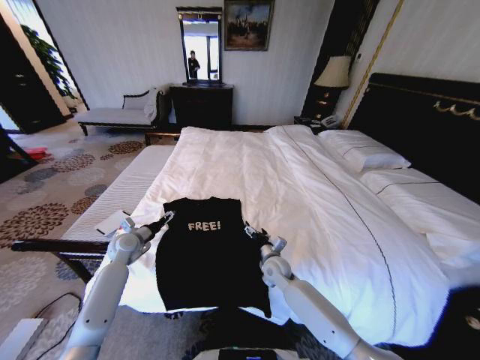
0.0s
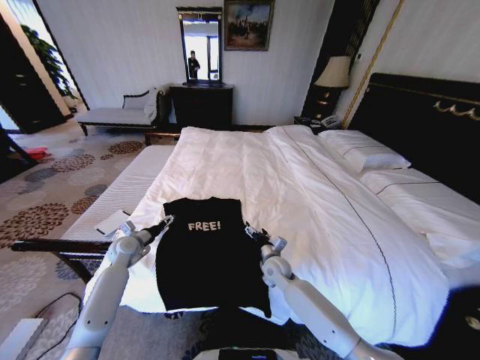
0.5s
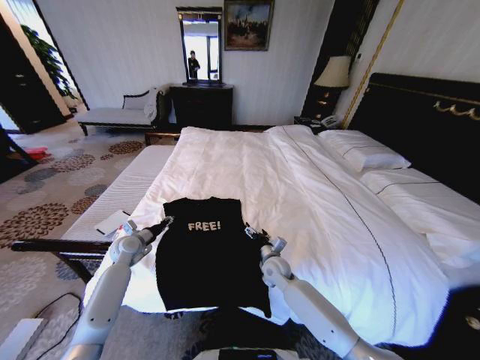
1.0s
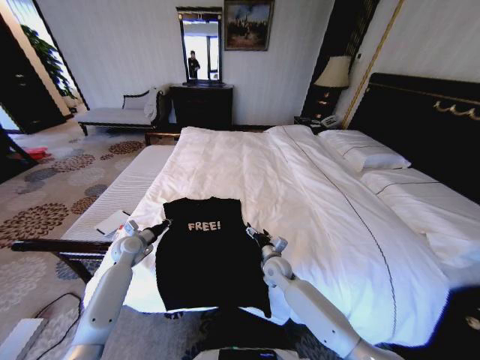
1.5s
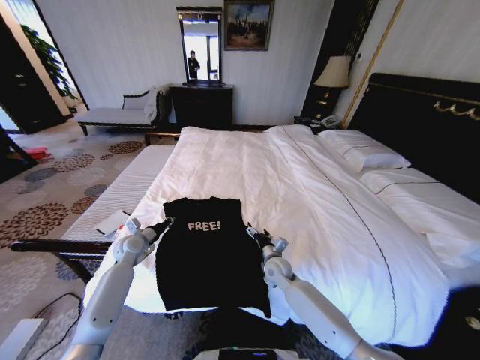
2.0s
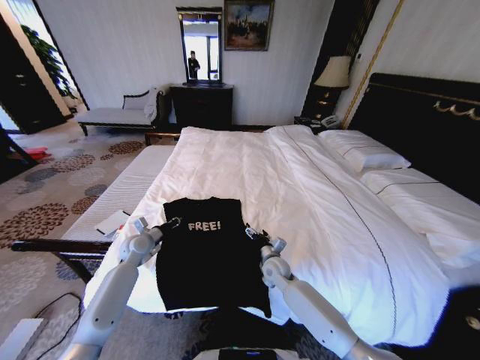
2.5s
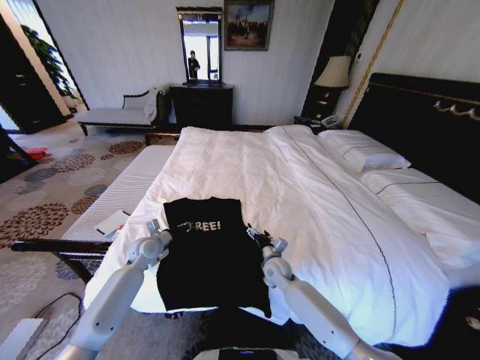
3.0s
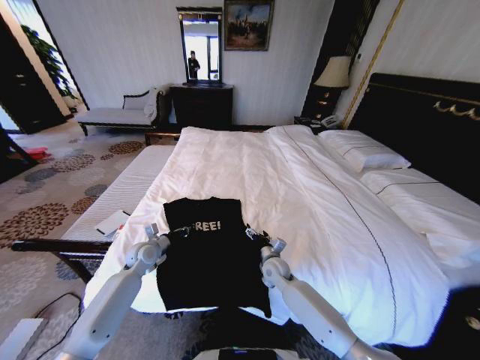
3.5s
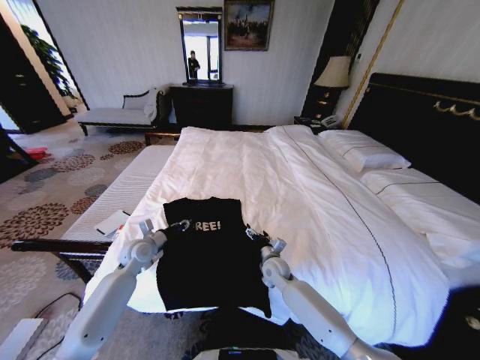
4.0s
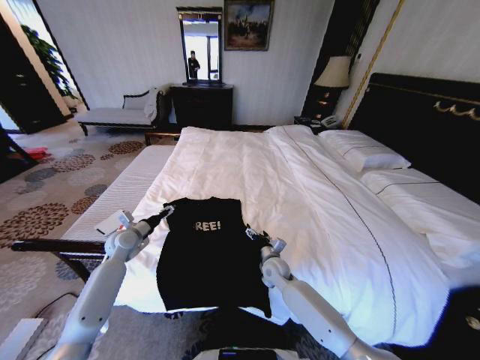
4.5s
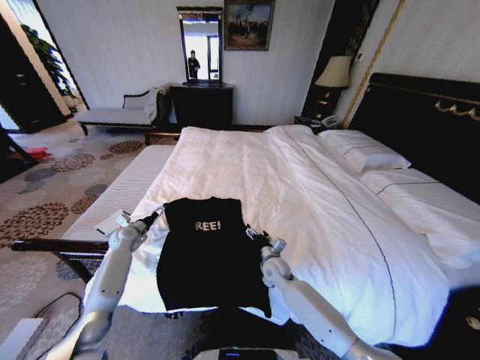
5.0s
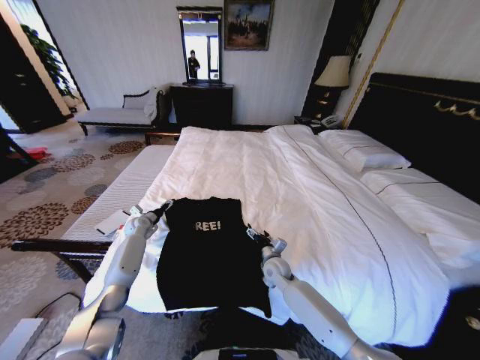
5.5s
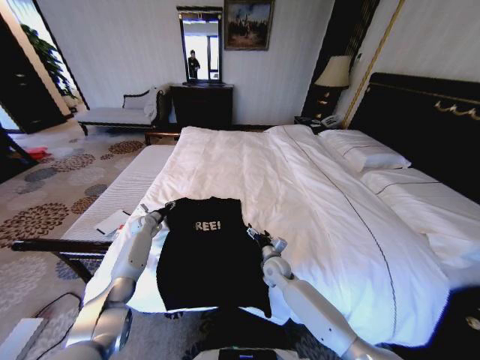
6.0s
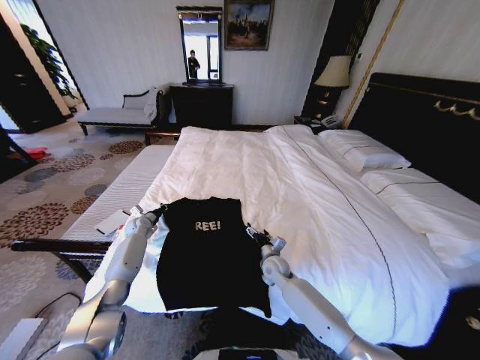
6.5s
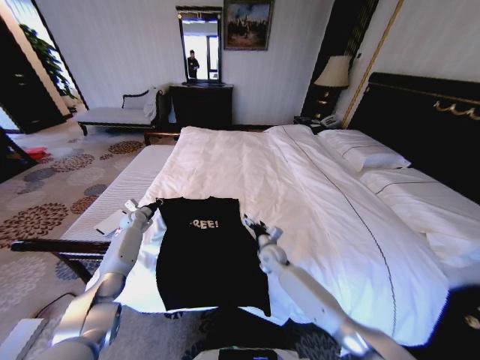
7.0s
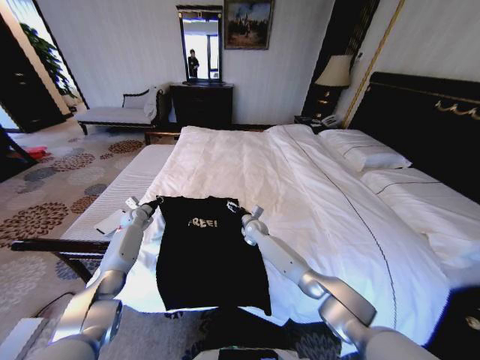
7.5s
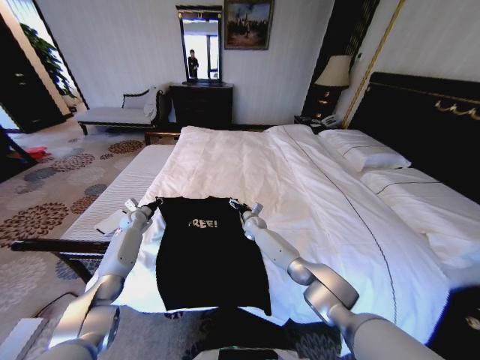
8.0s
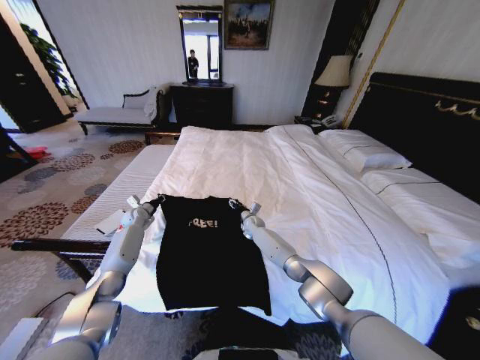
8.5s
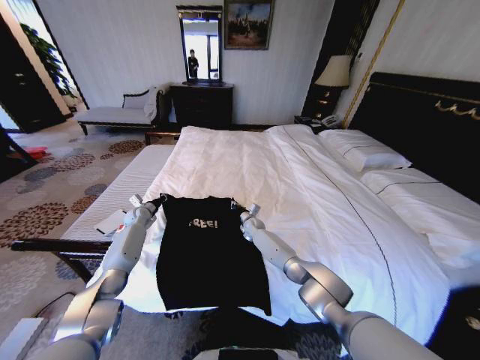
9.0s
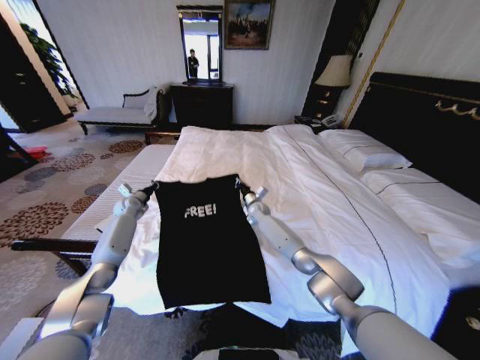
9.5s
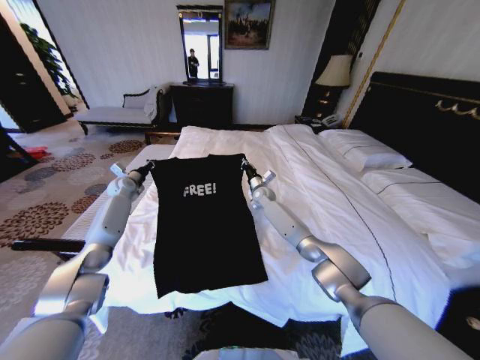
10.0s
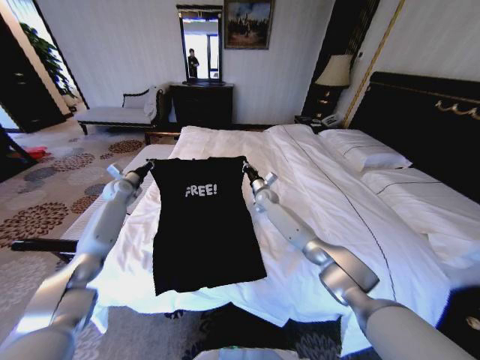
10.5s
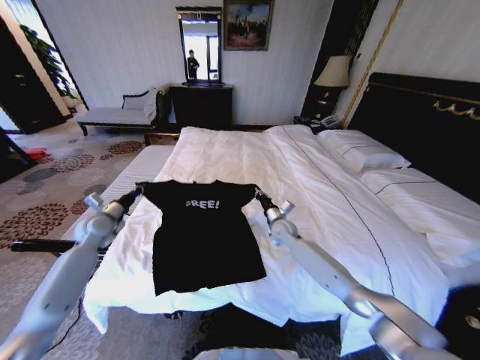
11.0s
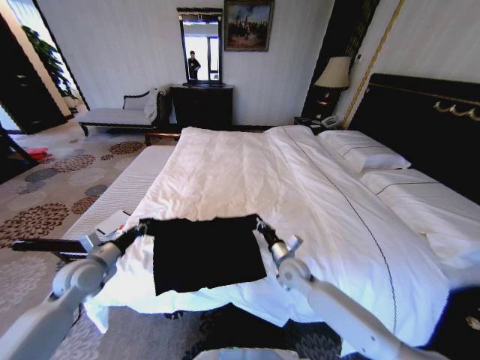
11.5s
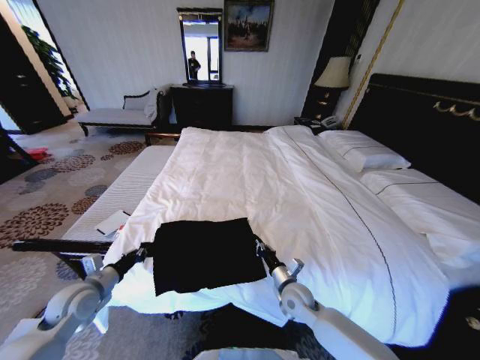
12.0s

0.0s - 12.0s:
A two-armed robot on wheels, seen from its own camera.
Task of the whole recording: Fold the clothes on the bed.
0.0s - 2.0s: The left gripper closes up.
2.0s - 4.0s: The left gripper ends up approximately 5 cm from where it was.
4.0s - 6.0s: The left gripper travels forward, downward and to the left by approximately 20 cm, and opens, then closes again.
6.0s - 8.0s: The right gripper heads forward, covering approximately 20 cm, while the left gripper closes its fingers.
8.0s - 10.0s: The two grippers go some 15 cm upward and forward. The right gripper closes.
10.0s - 12.0s: The grippers both shift backward by roughly 35 cm.

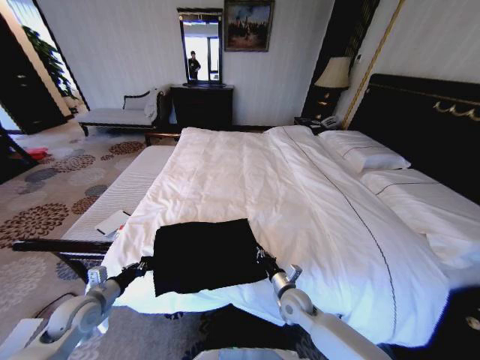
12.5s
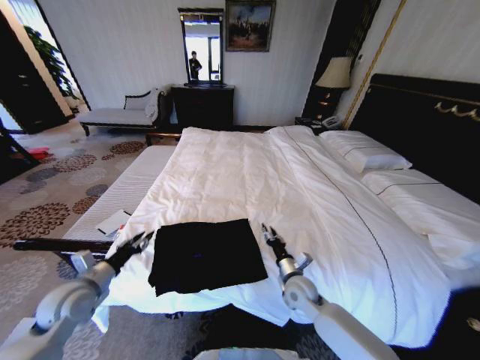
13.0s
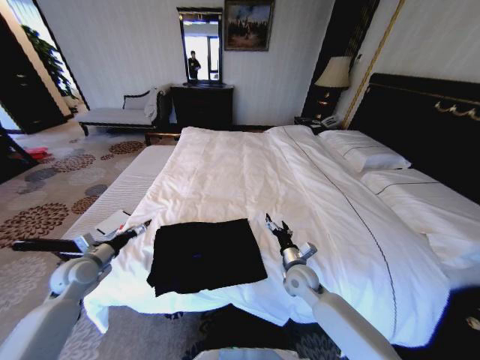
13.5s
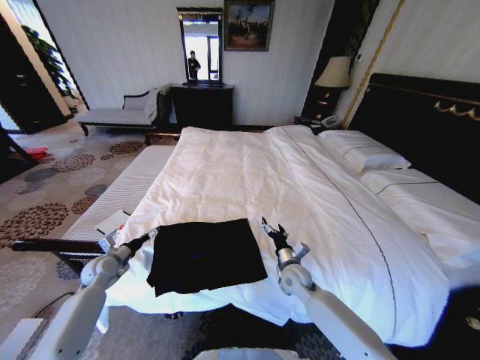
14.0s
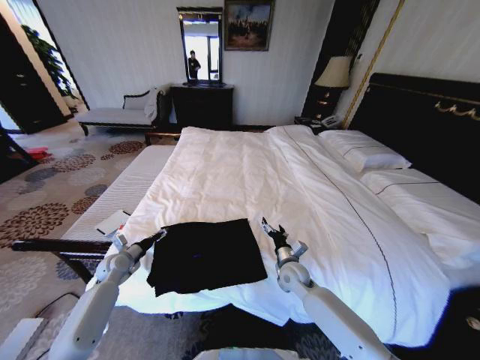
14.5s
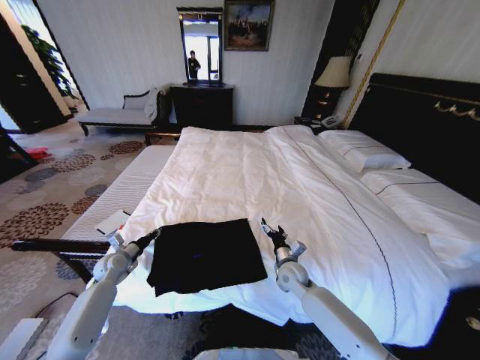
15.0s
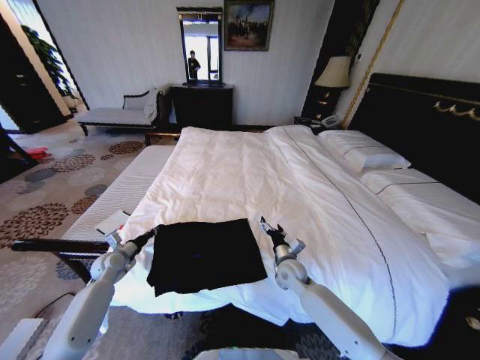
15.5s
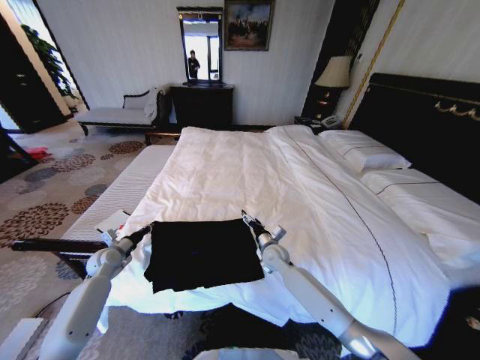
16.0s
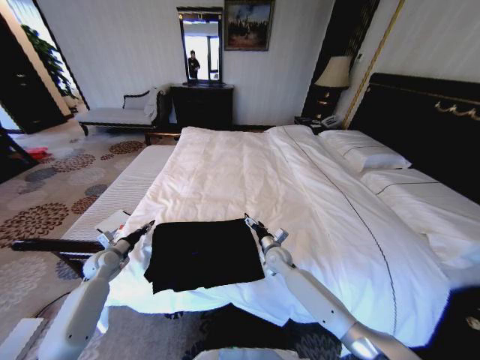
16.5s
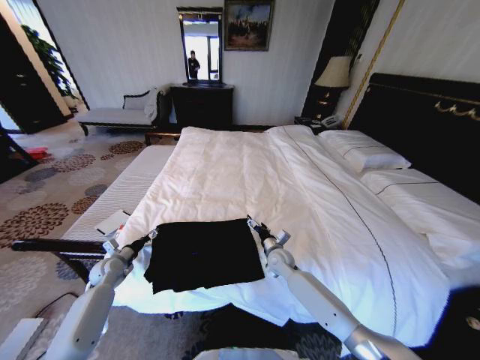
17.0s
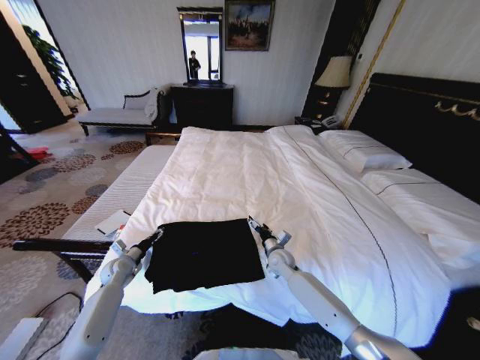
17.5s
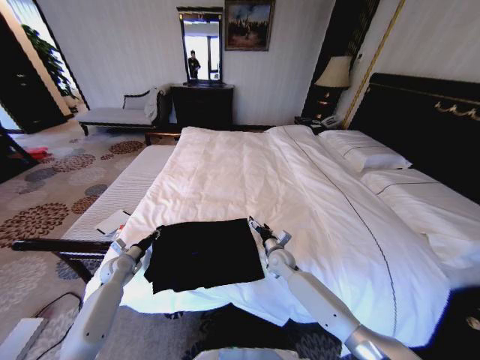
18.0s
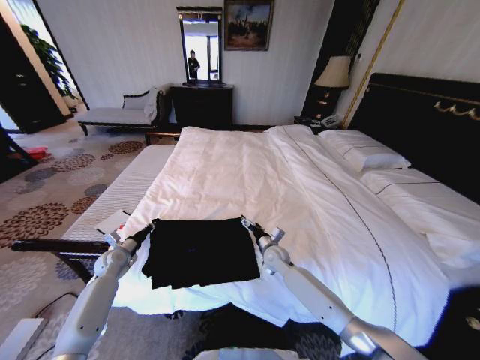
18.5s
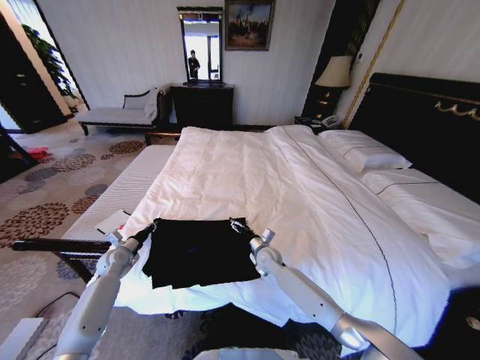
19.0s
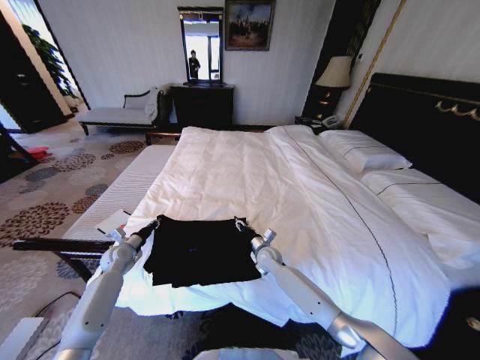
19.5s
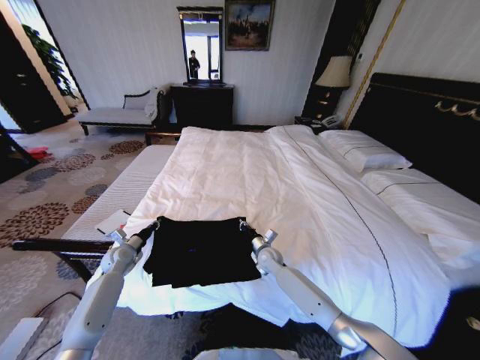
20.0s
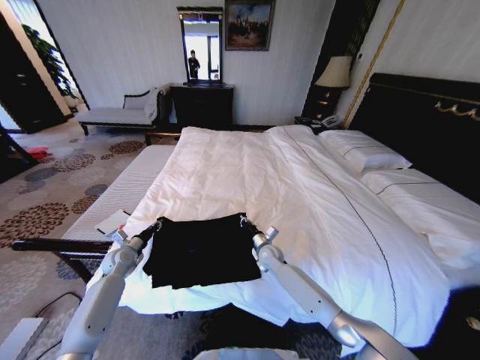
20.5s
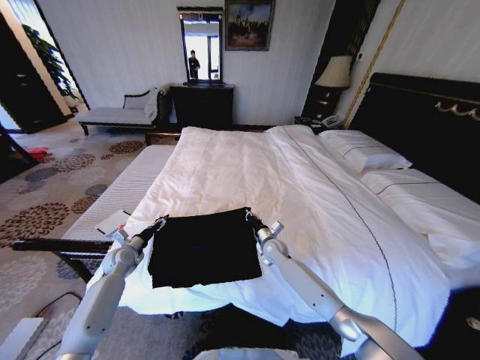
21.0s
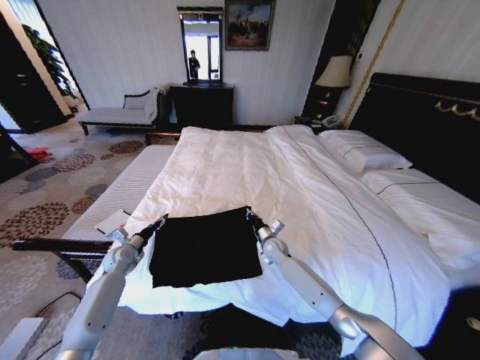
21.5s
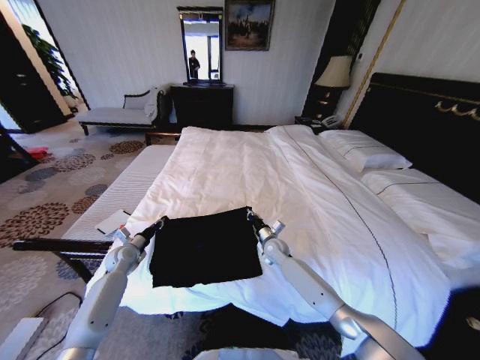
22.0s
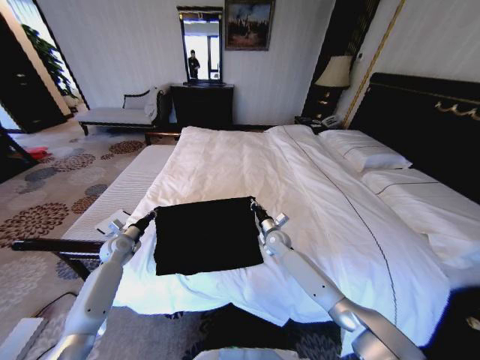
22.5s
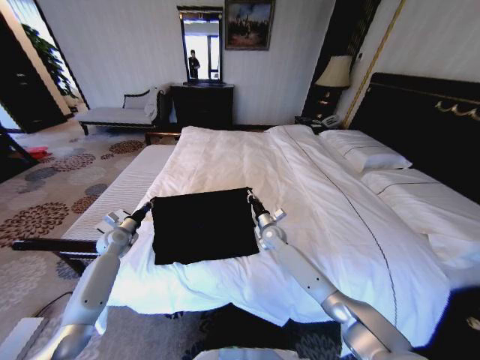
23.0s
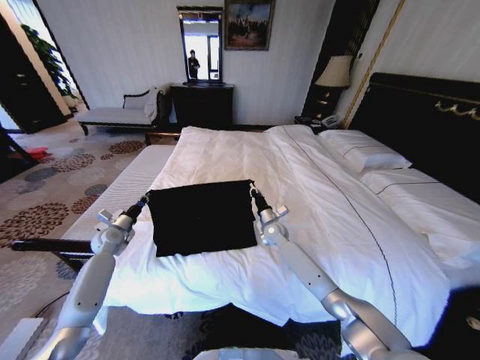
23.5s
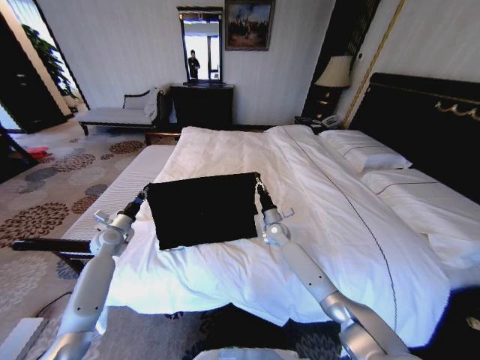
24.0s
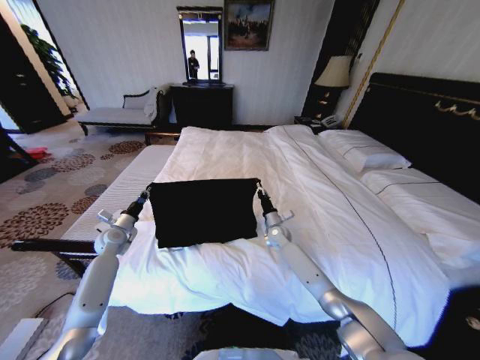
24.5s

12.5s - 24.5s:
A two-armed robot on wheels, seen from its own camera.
Task of the whole recording: Fold the clothes on the bed.
12.5s - 14.5s: The left gripper shifts roughly 15 cm forward, and opens its fingers. The right gripper heads forward, covering about 10 cm, and opens its fingers.
14.5s - 16.5s: The right gripper shifts roughly 5 cm forward. The left gripper closes its fingers.
16.5s - 18.5s: The left gripper opens, then closes once more.
18.5s - 20.5s: The right gripper closes up.
20.5s - 22.5s: The right gripper ends up about 5 cm from where it was. Meanwhile the left gripper opens, then closes once more.

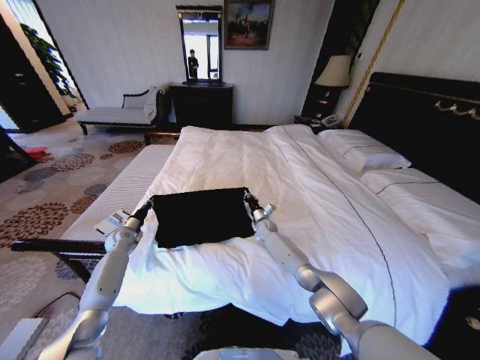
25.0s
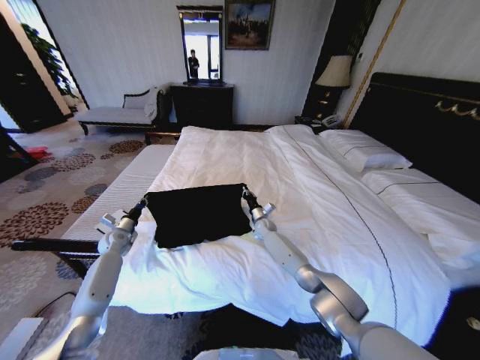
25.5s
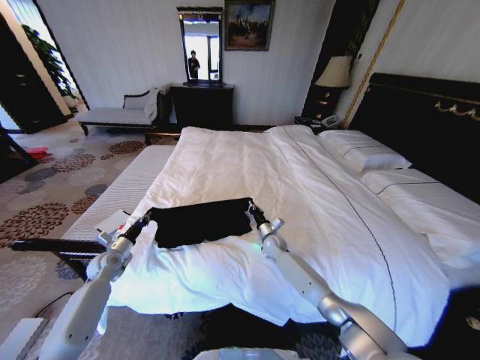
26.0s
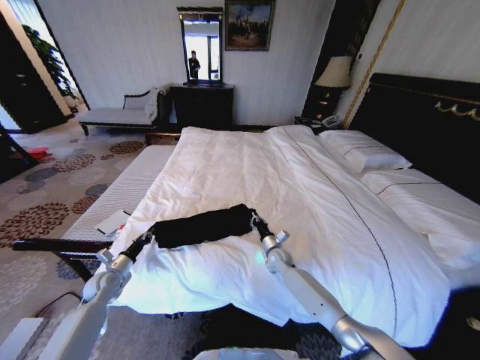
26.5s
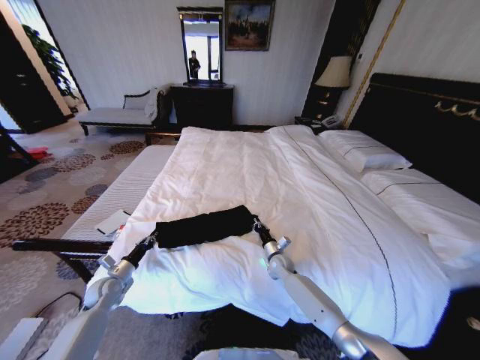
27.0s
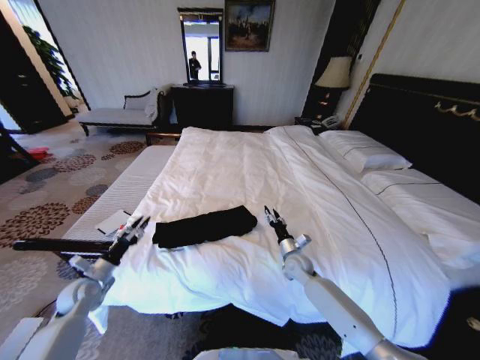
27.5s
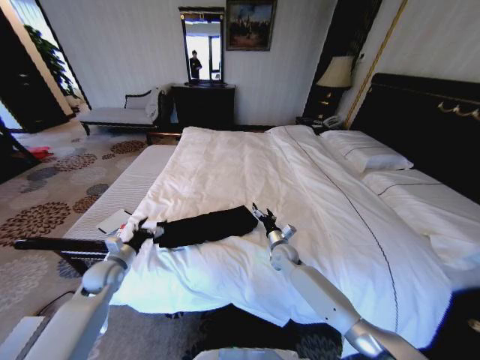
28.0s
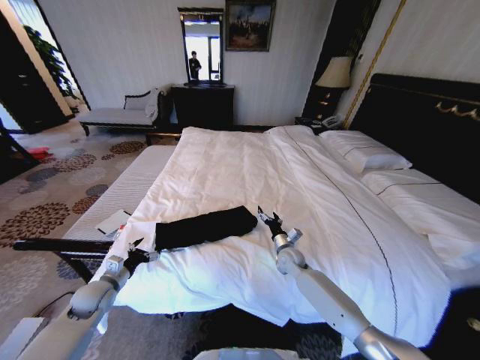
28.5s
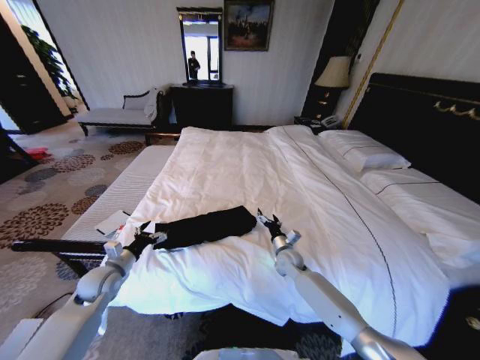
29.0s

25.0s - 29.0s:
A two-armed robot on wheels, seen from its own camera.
Task of the whole recording: Fold the clothes on the bed.
25.0s - 27.0s: Both grippers move backward, approximately 15 cm.
27.0s - 29.0s: The left gripper moves upward, approximately 10 cm, and opens up. Meanwhile the right gripper goes approximately 5 cm upward, and opens up.
